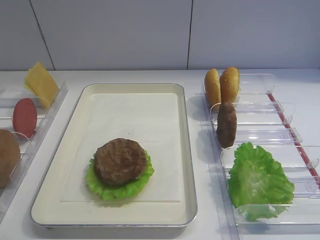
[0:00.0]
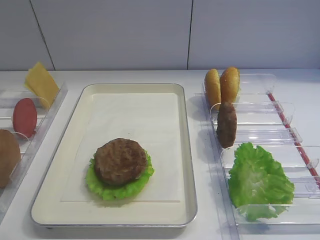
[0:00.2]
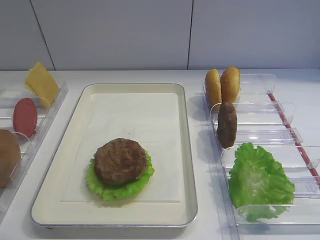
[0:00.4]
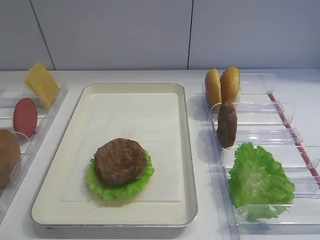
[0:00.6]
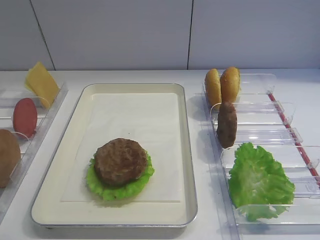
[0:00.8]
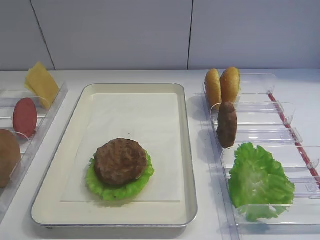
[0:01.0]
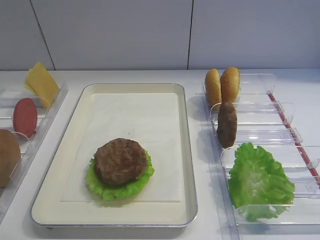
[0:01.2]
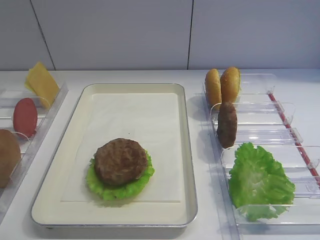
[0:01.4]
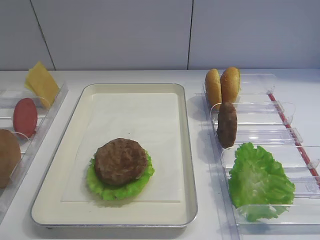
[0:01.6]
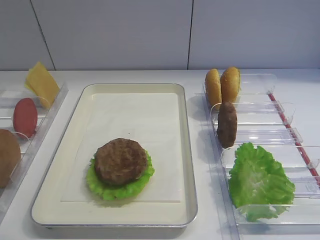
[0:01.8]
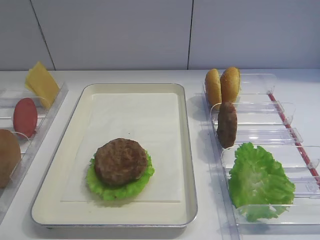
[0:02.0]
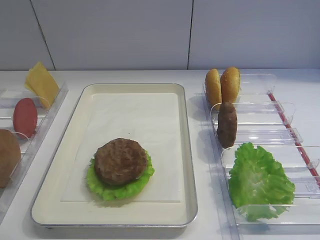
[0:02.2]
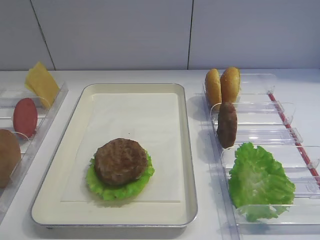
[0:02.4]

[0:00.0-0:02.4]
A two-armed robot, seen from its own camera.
1.2 to 2.4 s: Neither gripper changes place.

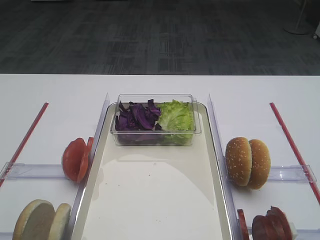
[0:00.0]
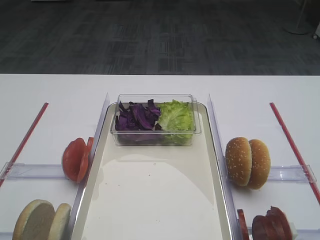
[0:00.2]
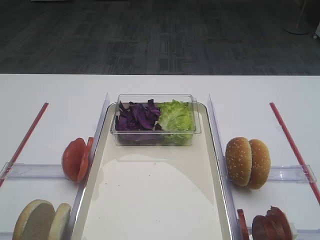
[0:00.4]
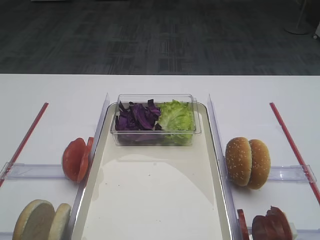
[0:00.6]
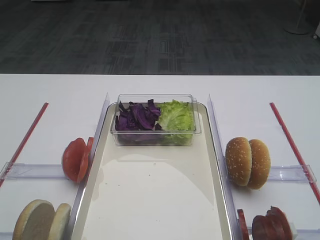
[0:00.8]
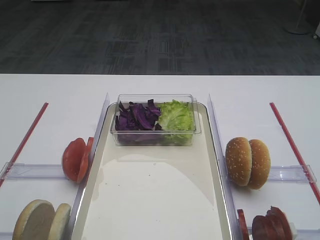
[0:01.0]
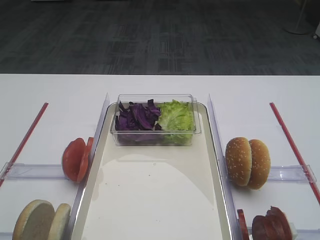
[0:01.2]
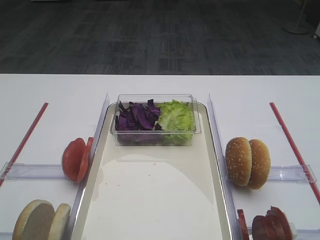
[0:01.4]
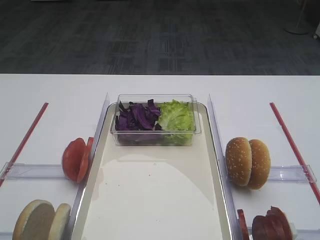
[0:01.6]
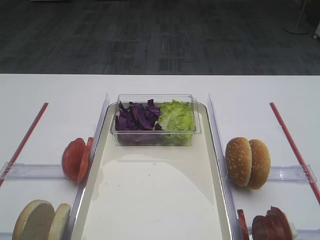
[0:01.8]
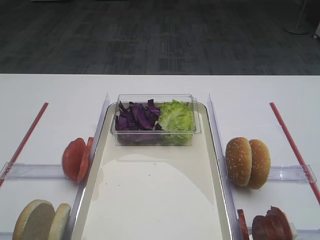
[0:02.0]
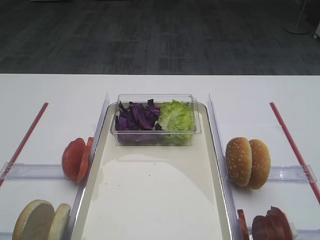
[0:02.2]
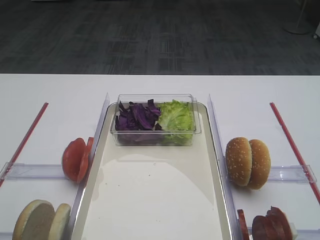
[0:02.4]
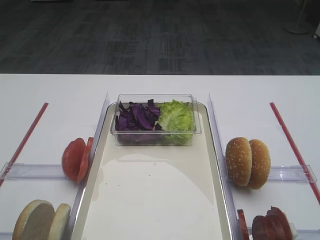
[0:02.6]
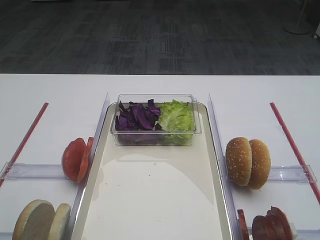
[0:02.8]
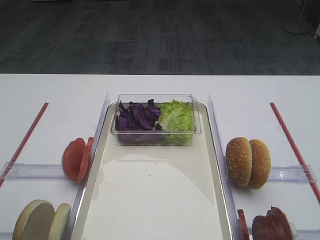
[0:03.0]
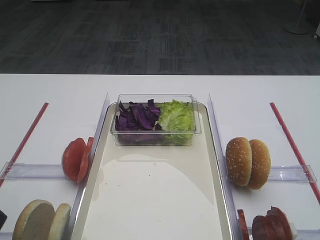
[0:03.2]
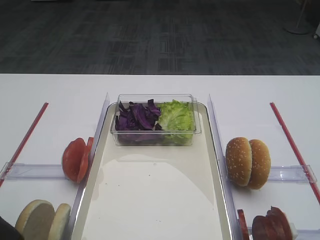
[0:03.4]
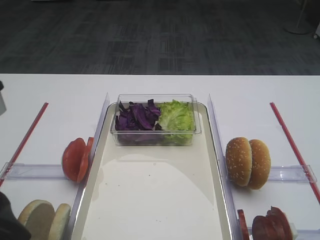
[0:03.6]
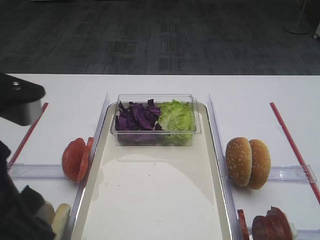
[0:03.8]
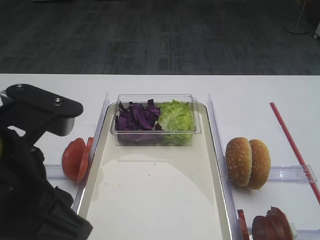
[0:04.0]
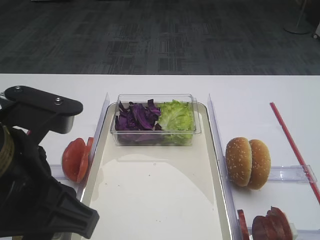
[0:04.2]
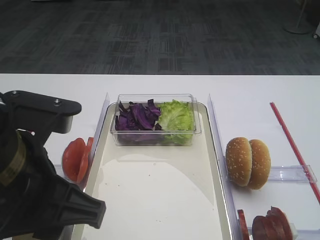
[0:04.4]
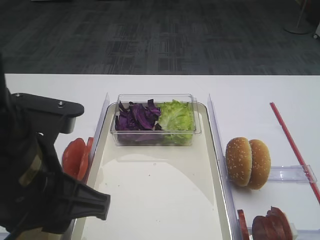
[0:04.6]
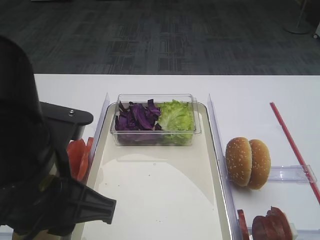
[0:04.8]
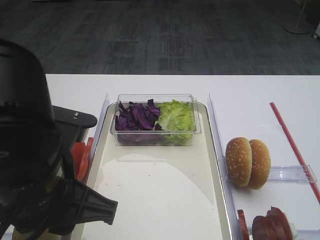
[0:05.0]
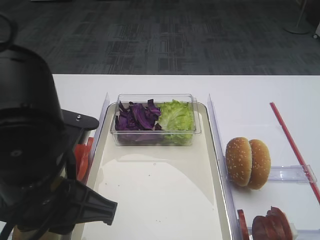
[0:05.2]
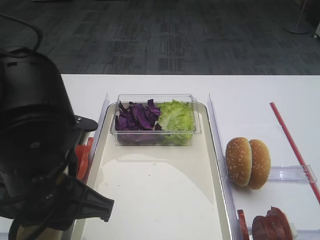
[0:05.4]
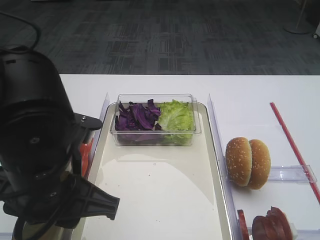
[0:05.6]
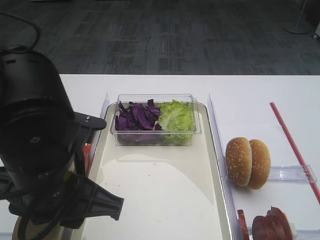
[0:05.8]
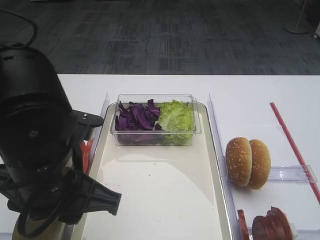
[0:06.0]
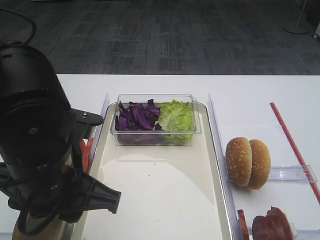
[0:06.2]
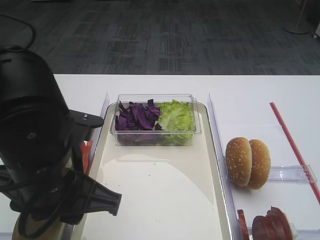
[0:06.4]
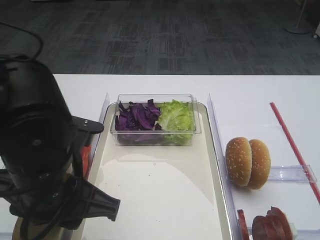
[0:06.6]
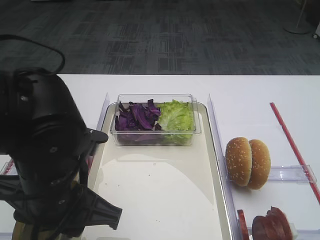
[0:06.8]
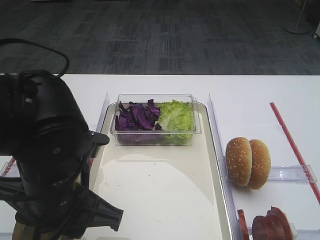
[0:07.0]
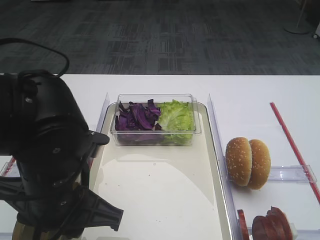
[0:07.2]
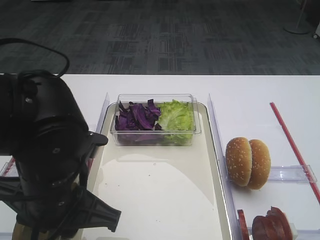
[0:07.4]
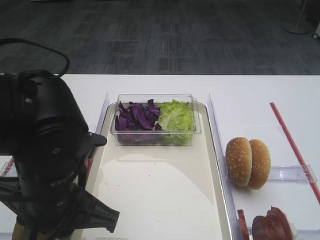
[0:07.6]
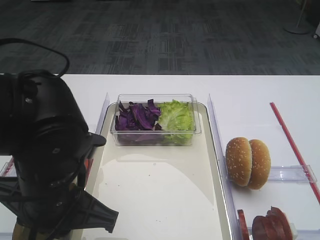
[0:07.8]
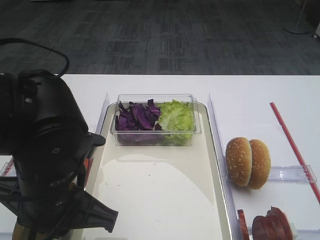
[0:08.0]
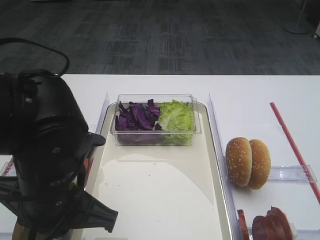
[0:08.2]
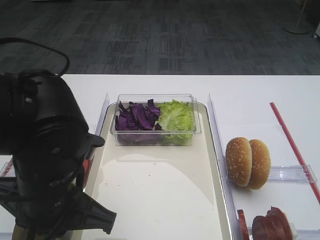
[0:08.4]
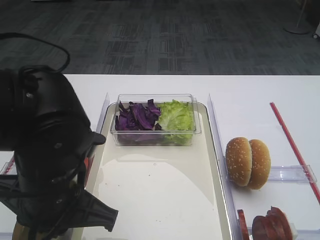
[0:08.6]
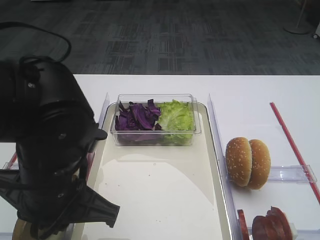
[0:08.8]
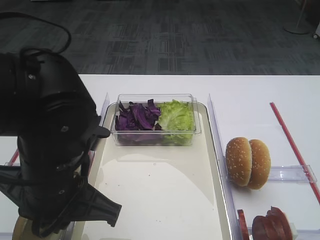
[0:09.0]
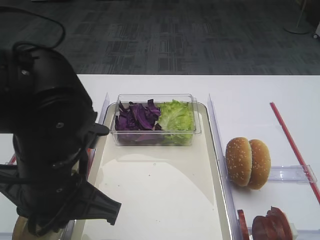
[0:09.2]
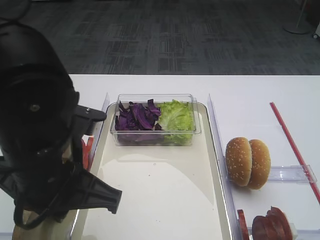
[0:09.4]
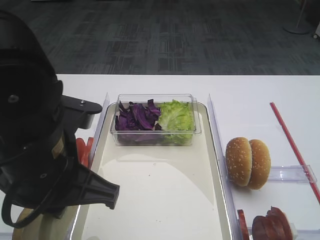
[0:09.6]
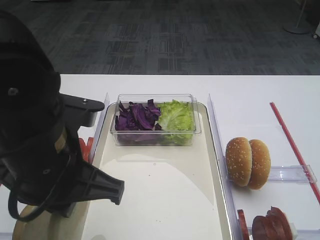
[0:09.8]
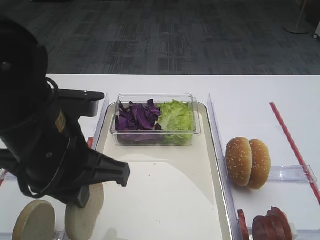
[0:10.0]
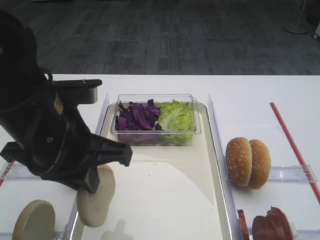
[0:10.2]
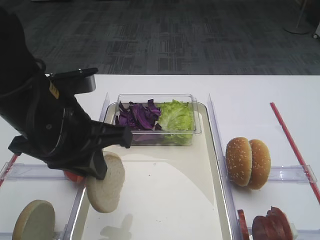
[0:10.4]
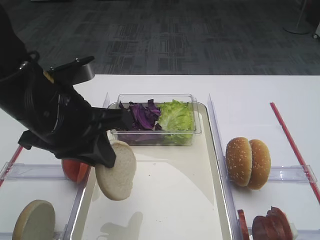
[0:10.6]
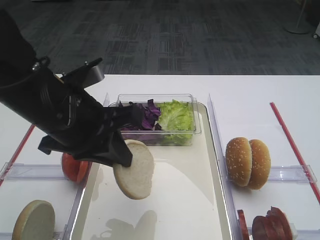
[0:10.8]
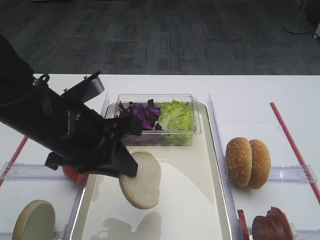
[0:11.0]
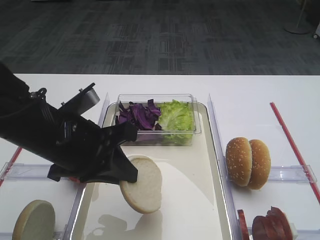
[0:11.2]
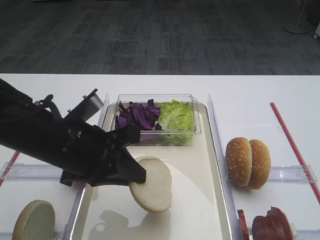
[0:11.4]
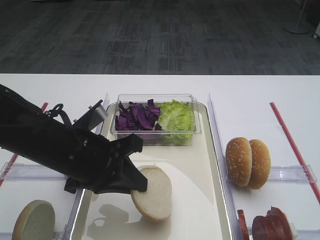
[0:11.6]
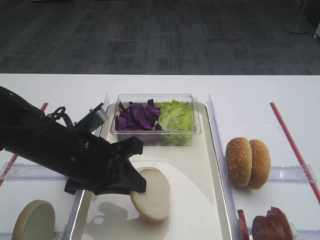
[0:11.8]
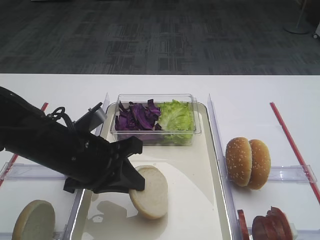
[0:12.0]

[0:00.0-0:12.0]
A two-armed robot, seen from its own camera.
Step, 0.0 to 9.6 s: Pick up the bread slice with the left gripper.
3.0 to 4.4 s: The left gripper goes approximately 15 cm to the right, downward and forward.
4.4 to 6.0 s: The left gripper moves approximately 5 cm.
6.0 to 9.0 s: The grippers make only small movements.
9.0 to 10.4 s: The left gripper moves about 5 cm.
10.4 to 12.0 s: The left gripper moves downward, some 10 cm.

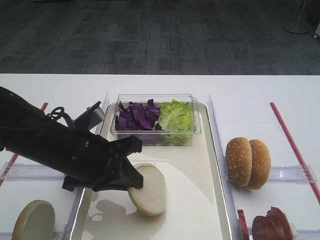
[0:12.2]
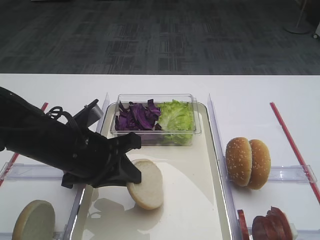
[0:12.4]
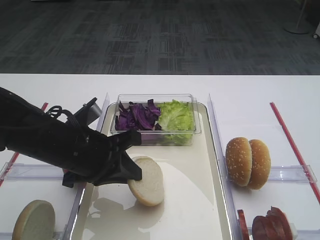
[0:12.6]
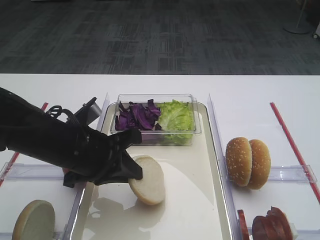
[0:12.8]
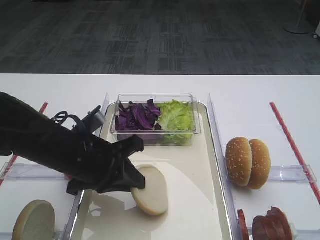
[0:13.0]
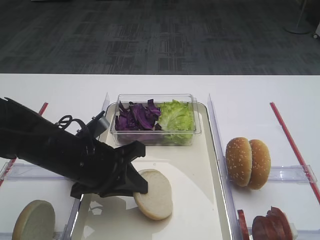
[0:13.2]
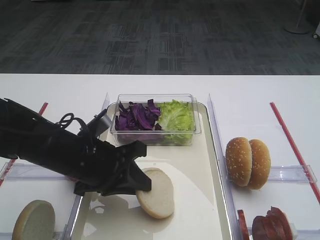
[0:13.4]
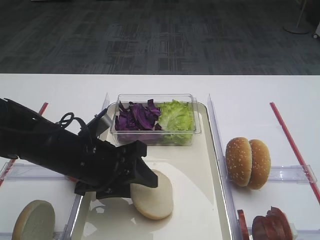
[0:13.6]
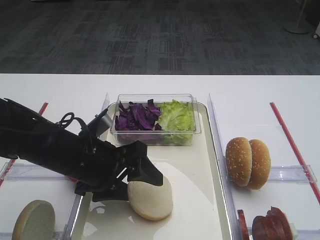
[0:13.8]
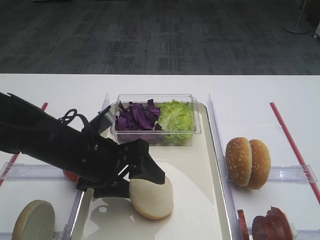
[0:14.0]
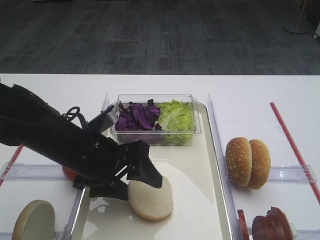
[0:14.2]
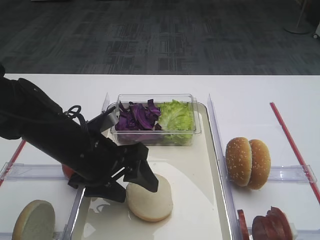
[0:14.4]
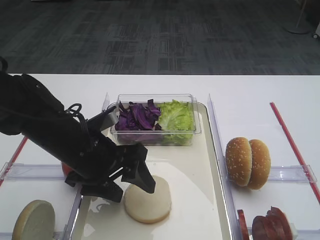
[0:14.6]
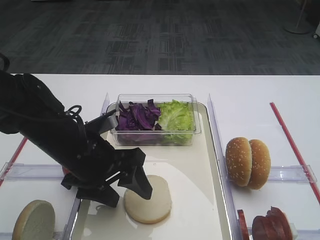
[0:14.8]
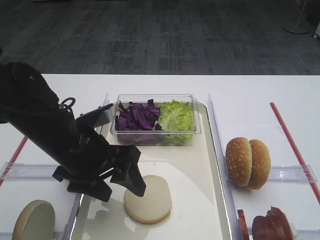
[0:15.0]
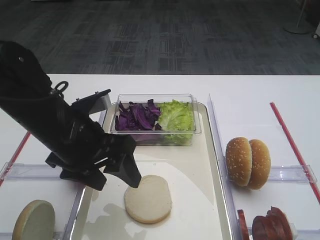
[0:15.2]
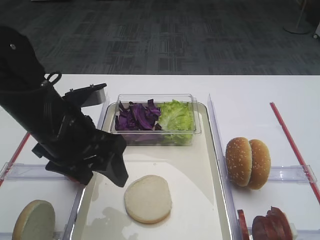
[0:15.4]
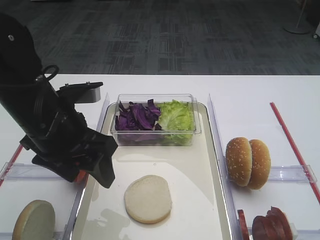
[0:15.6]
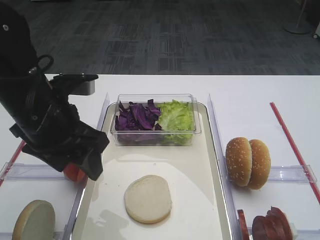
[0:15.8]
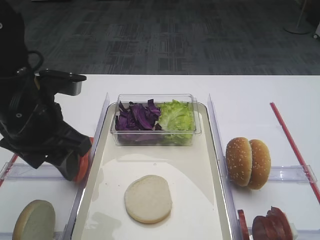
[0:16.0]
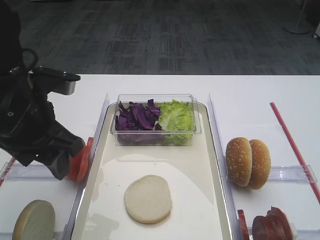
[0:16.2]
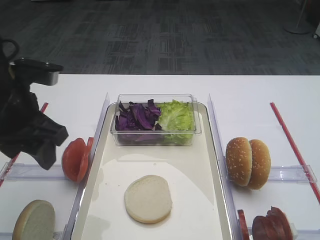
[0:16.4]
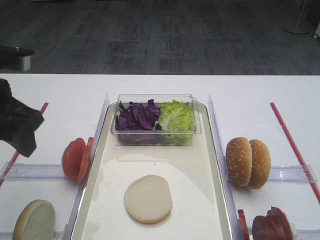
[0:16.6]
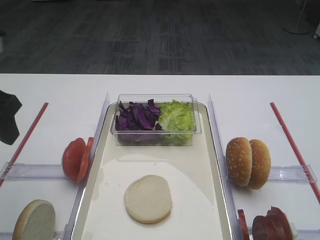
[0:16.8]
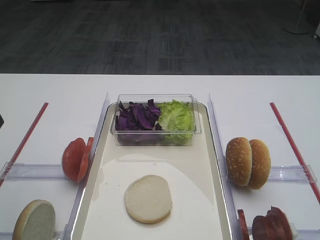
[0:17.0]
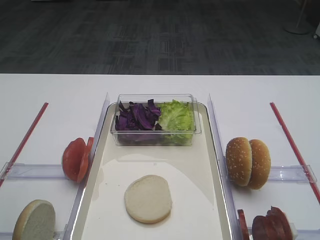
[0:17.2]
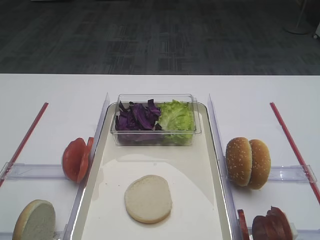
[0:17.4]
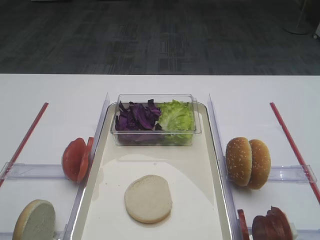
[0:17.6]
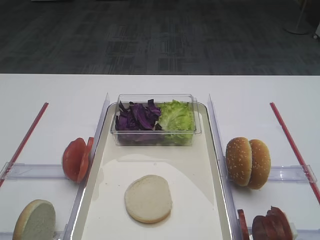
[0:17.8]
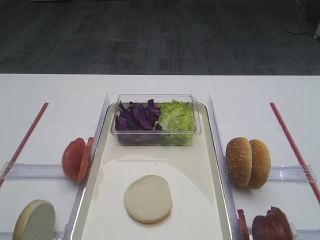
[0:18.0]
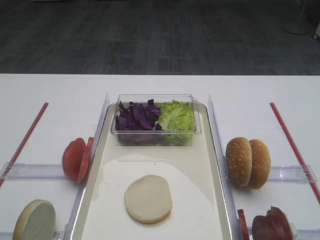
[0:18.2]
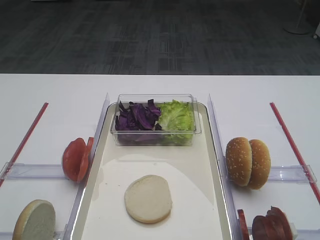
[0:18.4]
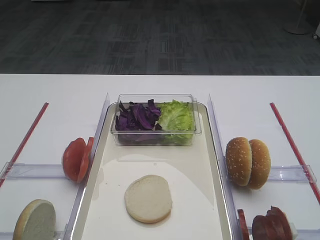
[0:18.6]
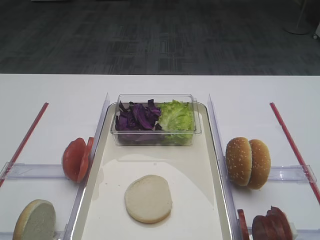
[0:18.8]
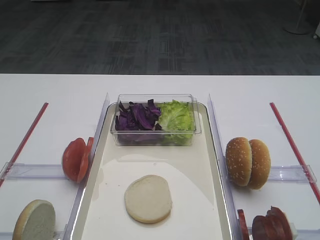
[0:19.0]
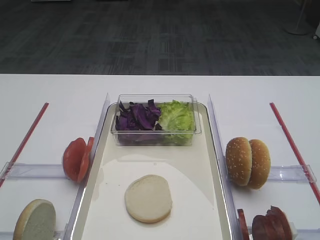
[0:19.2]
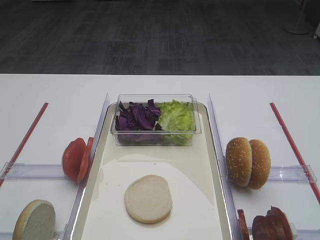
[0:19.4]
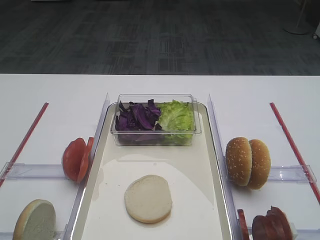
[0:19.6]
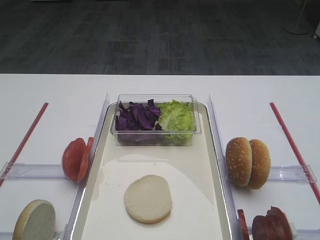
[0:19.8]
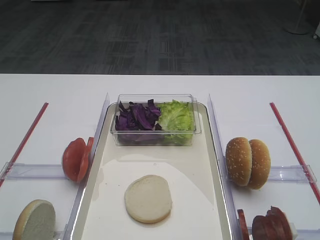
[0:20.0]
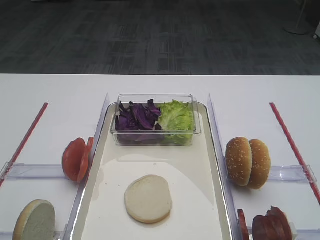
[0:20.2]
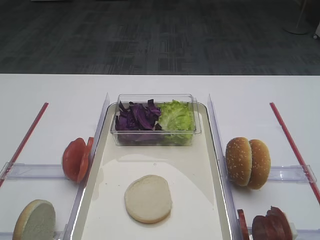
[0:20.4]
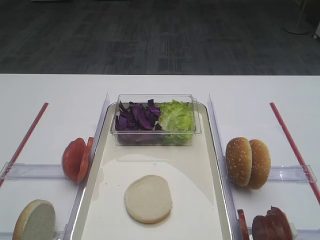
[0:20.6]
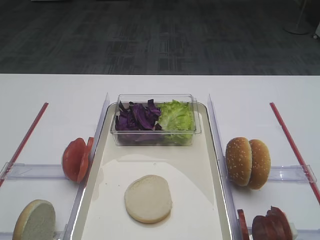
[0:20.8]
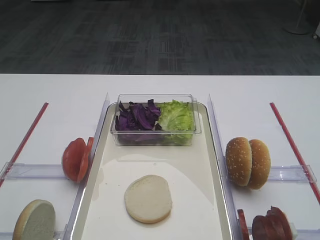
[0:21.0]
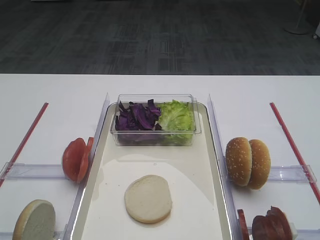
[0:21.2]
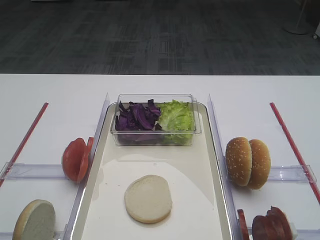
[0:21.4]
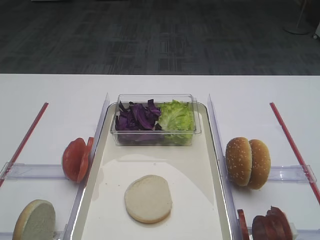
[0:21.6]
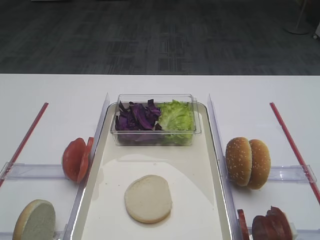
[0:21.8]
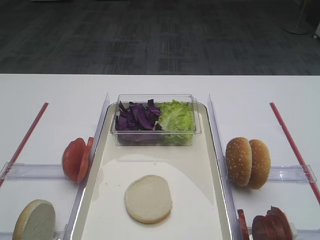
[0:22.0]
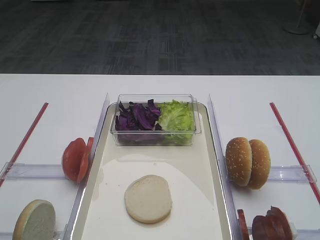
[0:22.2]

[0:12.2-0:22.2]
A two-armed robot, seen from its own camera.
Step, 12.2 to 14.8 s: Place the bread slice on the tray with the left gripper.
12.2 to 13.6 s: The left gripper opens.
13.6 to 15.0 s: The left gripper opens.
15.0 to 16.4 s: The left gripper heads upward and to the left, covering roughly 10 cm.
16.4 to 18.0 s: The left gripper travels backward by about 20 cm.
19.4 to 22.2 s: Both grippers stay put.
